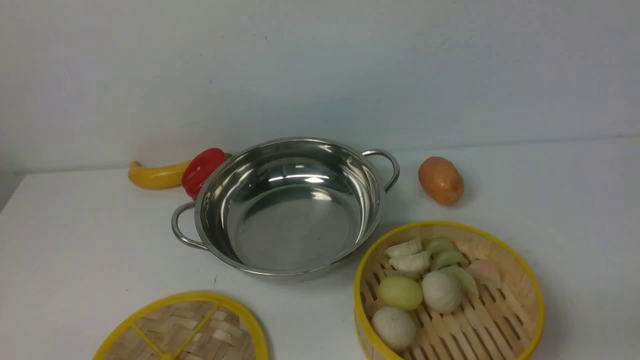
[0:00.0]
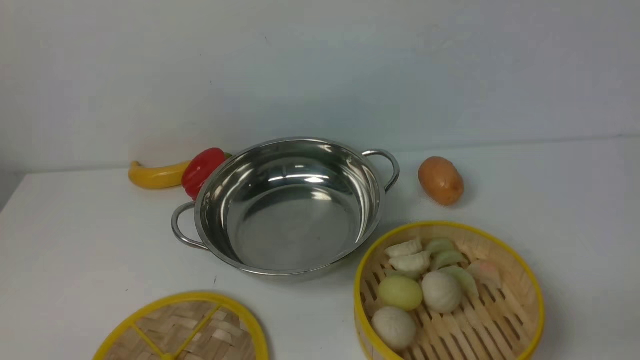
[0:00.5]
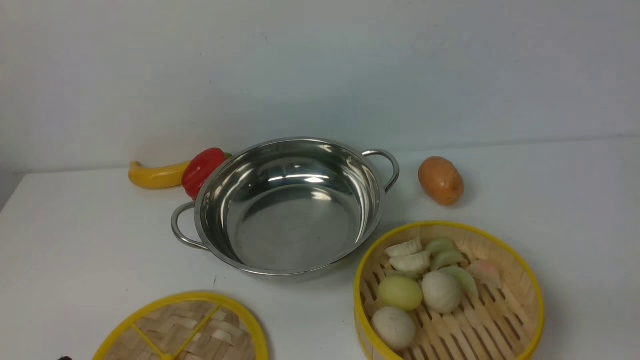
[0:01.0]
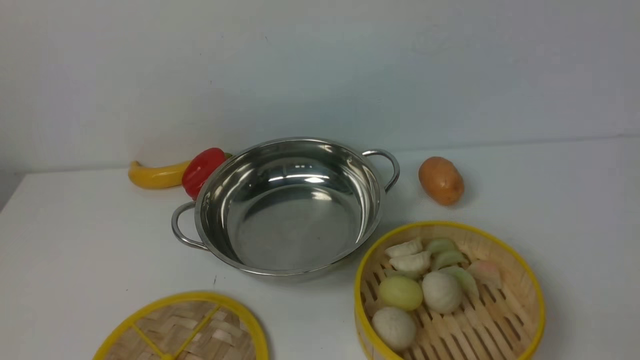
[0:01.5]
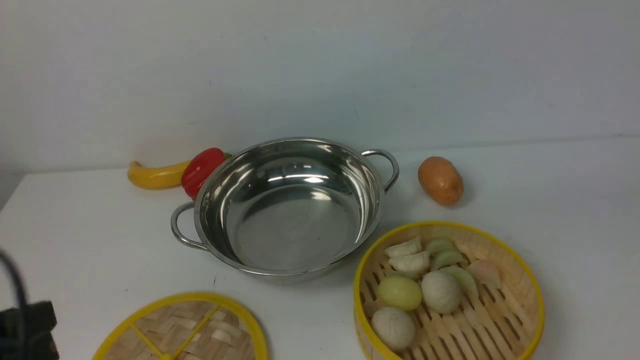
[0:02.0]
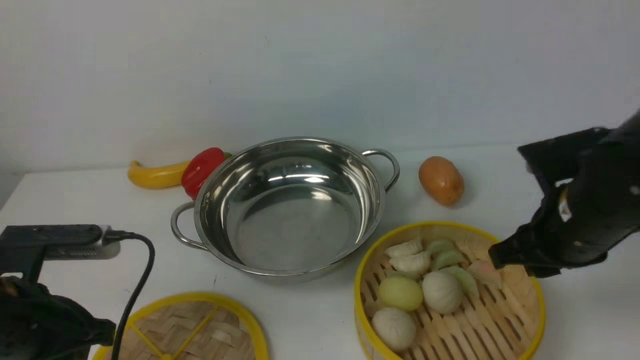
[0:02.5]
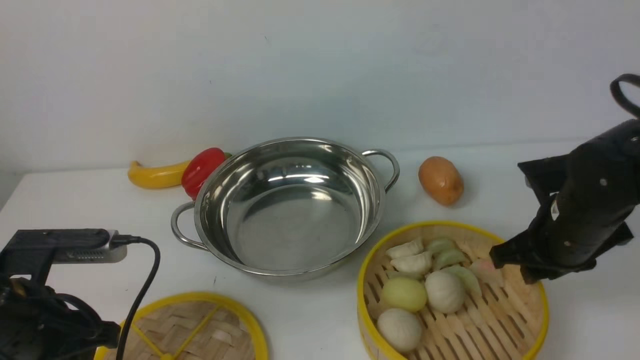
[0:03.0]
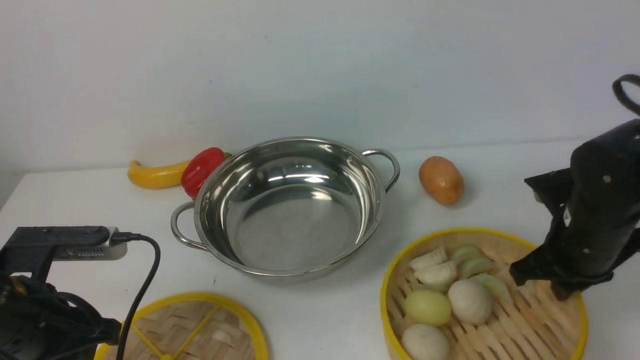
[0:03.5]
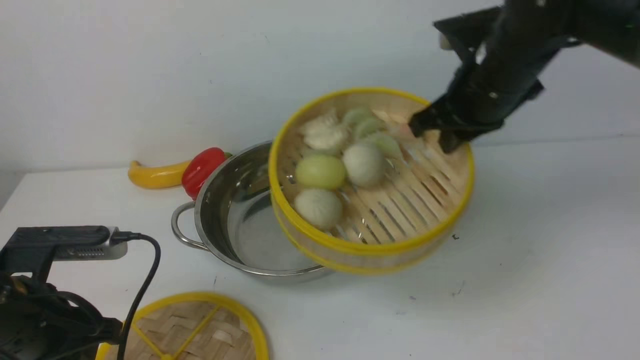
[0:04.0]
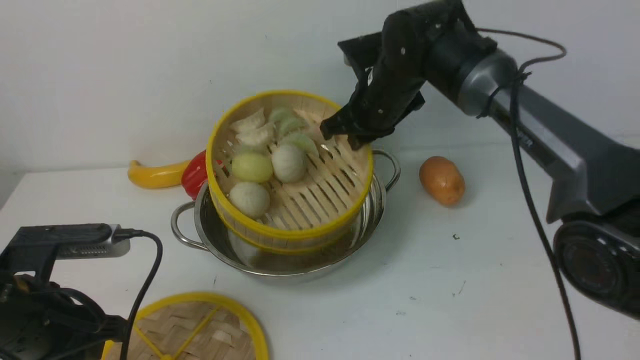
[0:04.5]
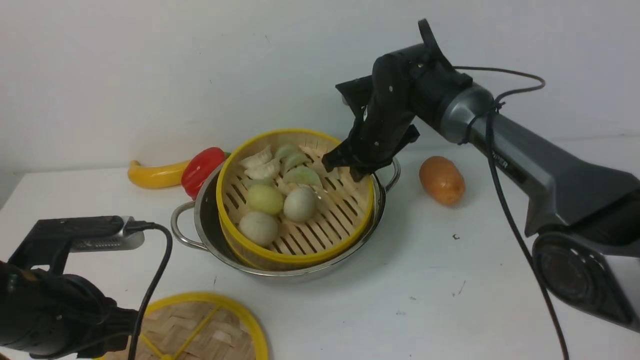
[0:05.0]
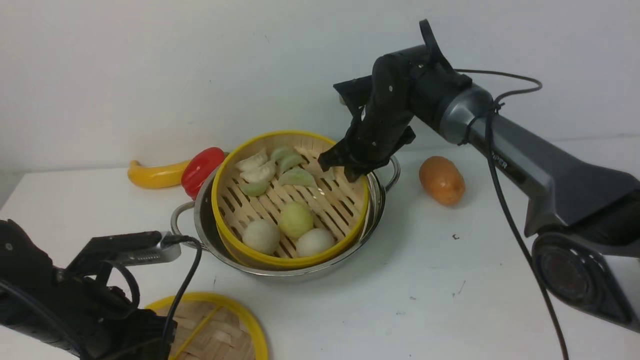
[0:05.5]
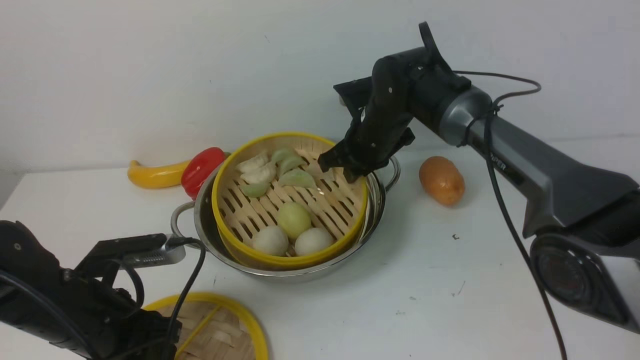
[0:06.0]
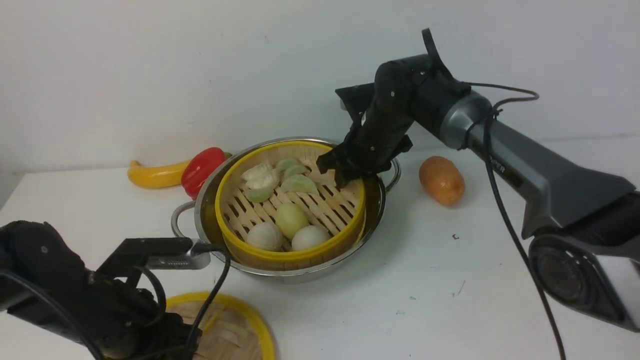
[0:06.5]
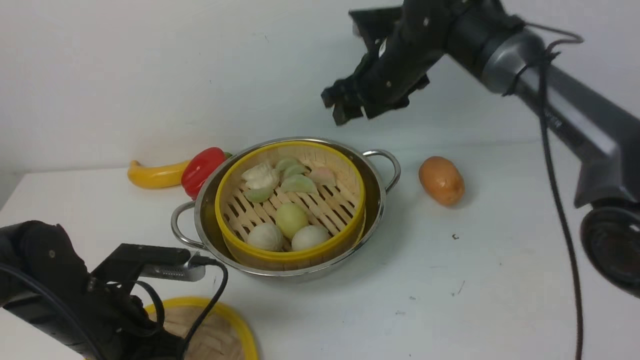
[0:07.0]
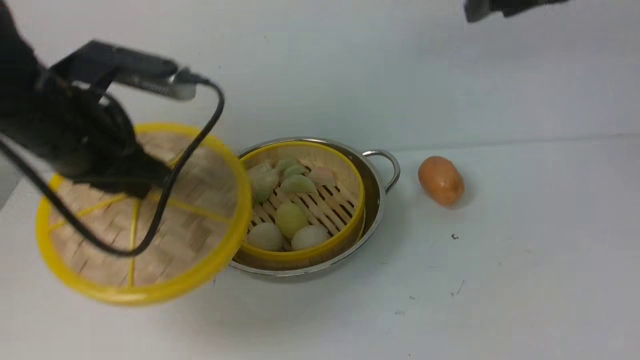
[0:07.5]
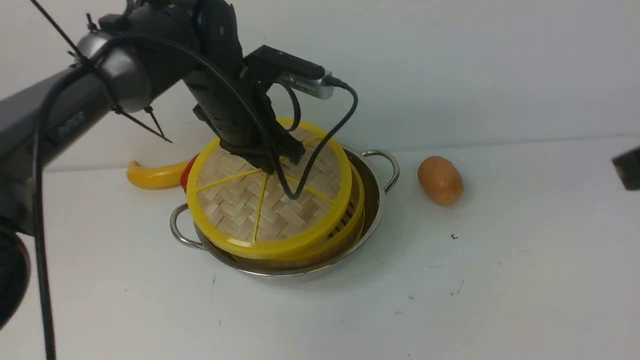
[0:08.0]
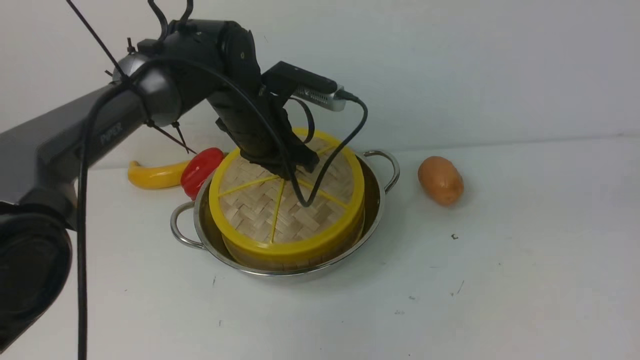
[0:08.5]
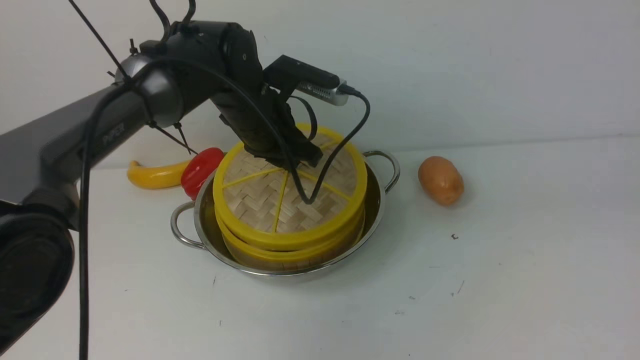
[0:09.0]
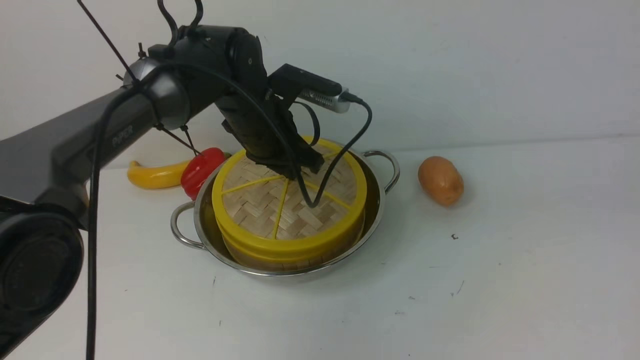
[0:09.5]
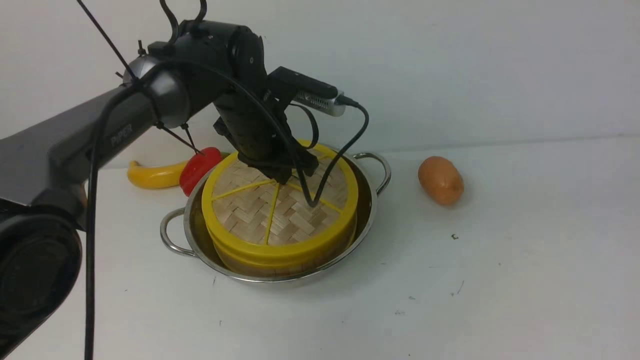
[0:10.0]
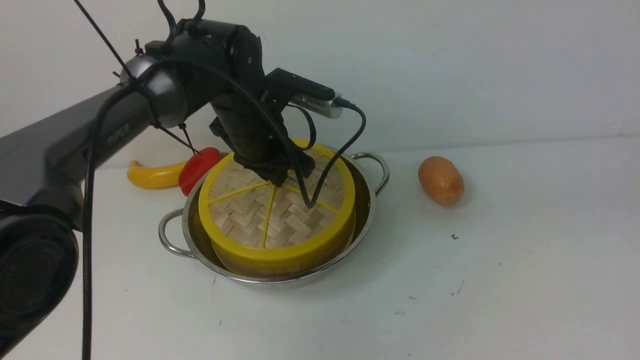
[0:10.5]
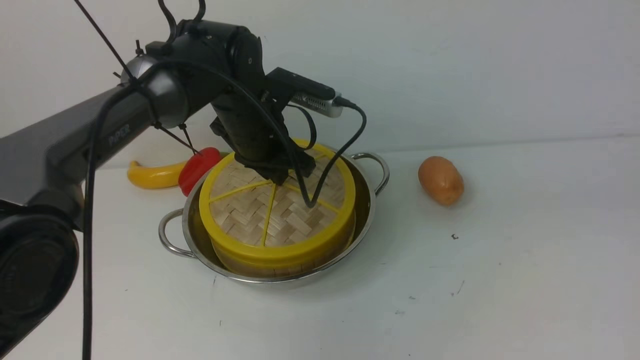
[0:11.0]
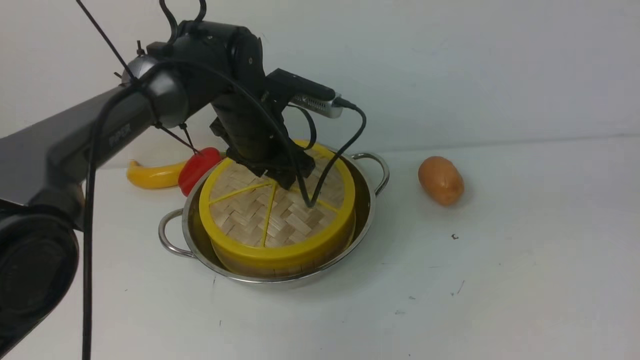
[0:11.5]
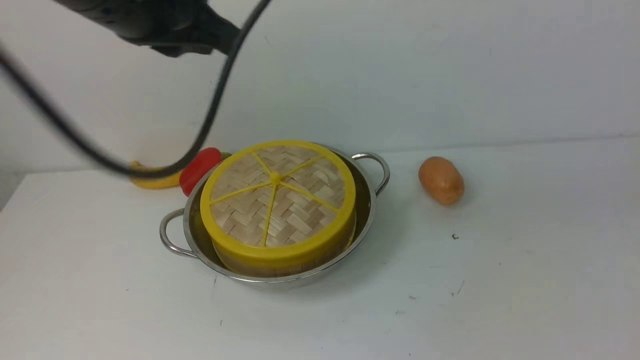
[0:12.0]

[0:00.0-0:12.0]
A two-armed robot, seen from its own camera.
Task of the whole recording: place the steamer in the pot on the white table, and put the lid on the steamer.
Step, 0:00.0 to 0:03.5: use the right arm to lift the steamer closest to it.
Step, 0:04.0 to 0:06.5: use the right arm to put the steamer into the iron steamer pot in the middle.
Step, 0:07.5 to 0:11.5: use the left arm to place the steamer lid on the steamer.
0:00.0 to 0:02.0: The left gripper goes some 10 cm upward and forward.
0:02.0 to 0:04.0: The right gripper moves forward and to the left, approximately 30 cm, and closes up, while the left gripper goes roughly 10 cm forward and downward.
0:04.0 to 0:06.0: The left gripper heads downward, covering roughly 5 cm; the right gripper moves downward, to the left and forward, some 15 cm.
0:06.0 to 0:08.0: The left gripper moves forward, to the right and upward, about 25 cm, and closes up, while the right gripper heads backward, to the right and upward, covering roughly 40 cm, and opens and closes again.
0:08.0 to 0:10.0: The right gripper goes about 10 cm backward.
0:10.0 to 0:12.0: The left gripper moves upward and backward, about 25 cm, and opens and closes again.

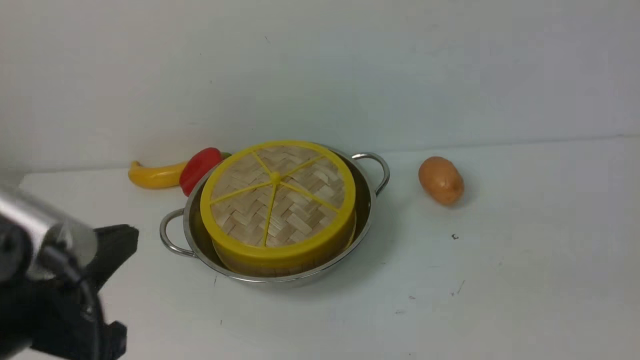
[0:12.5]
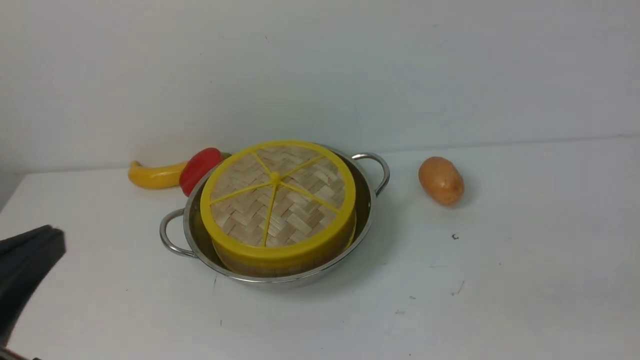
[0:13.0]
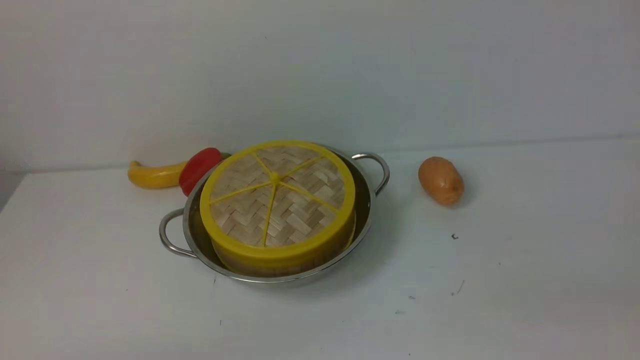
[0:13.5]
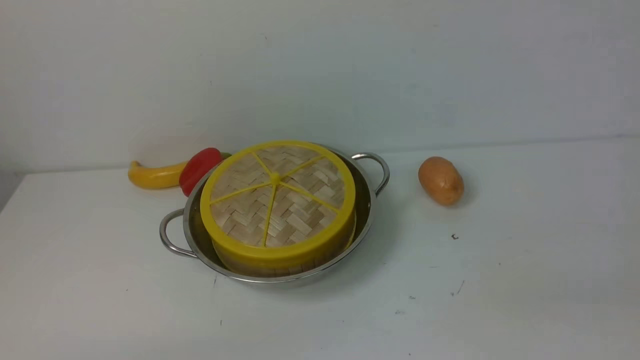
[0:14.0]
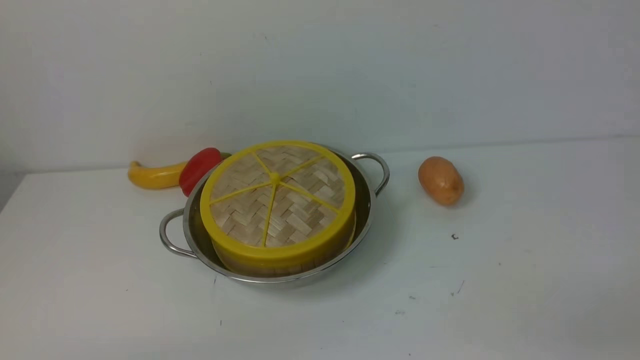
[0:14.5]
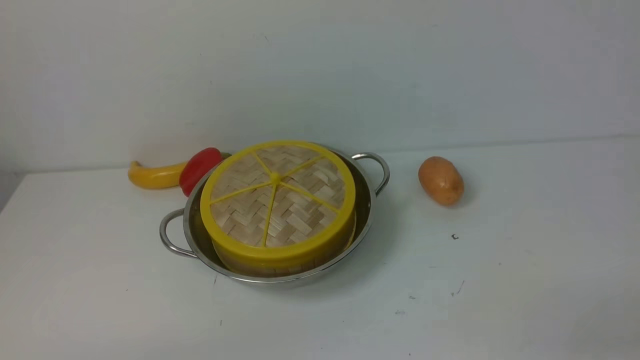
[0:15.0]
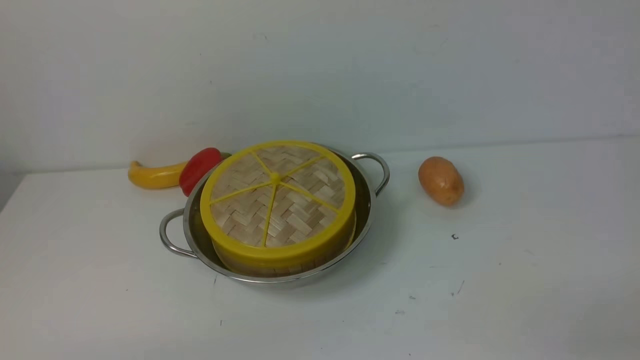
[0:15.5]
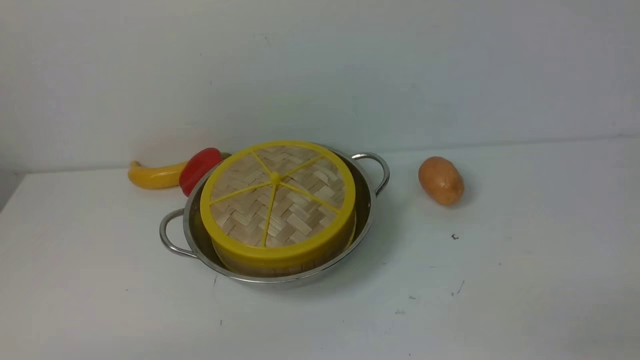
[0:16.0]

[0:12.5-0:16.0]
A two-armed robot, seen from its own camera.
Task of the whole recording: place the steamer in the pot on the white table, and put the lid on the steamer.
0:12.5 to 0:14.5: The left gripper travels downward by roughly 15 cm.
